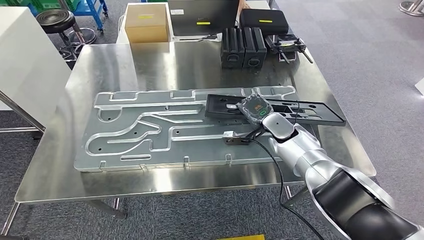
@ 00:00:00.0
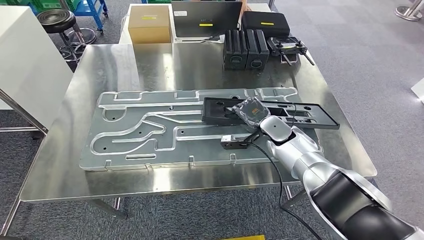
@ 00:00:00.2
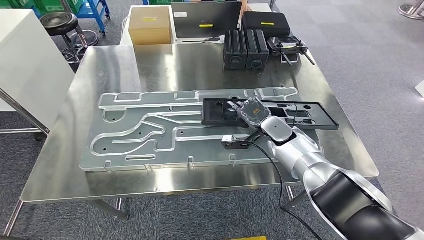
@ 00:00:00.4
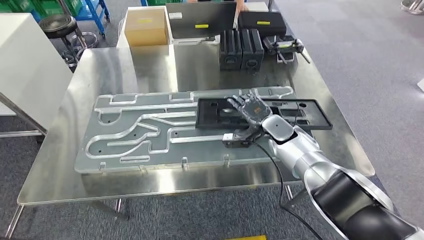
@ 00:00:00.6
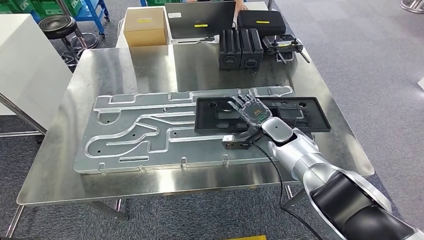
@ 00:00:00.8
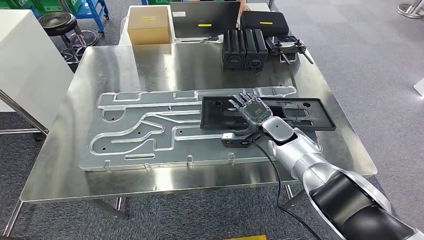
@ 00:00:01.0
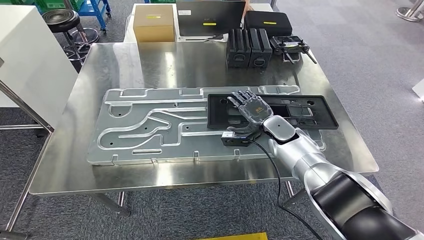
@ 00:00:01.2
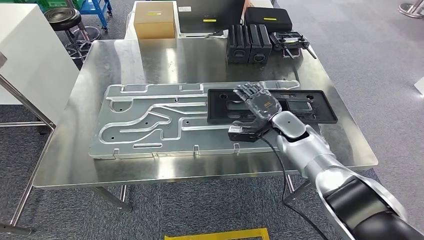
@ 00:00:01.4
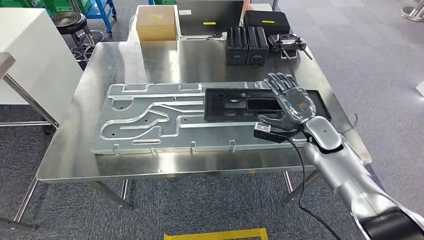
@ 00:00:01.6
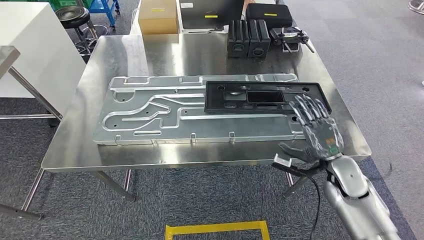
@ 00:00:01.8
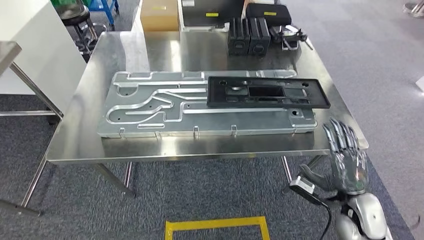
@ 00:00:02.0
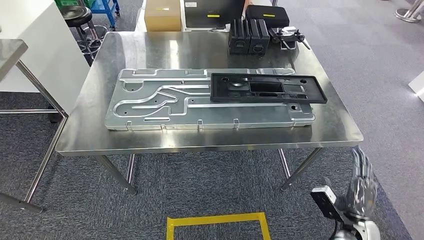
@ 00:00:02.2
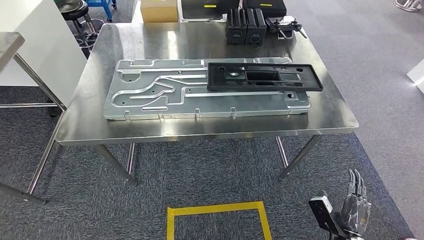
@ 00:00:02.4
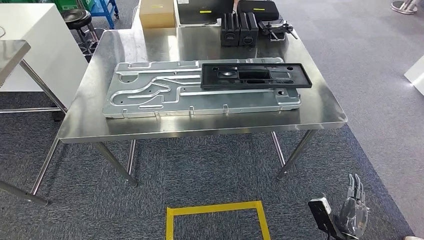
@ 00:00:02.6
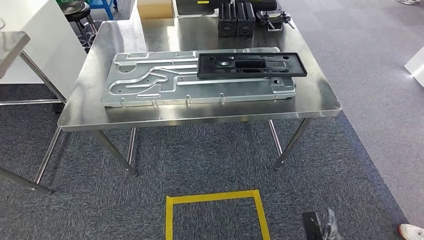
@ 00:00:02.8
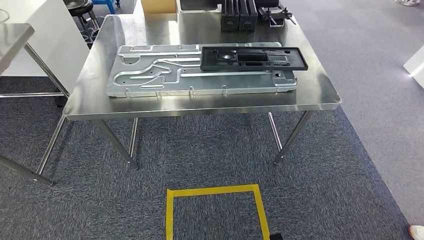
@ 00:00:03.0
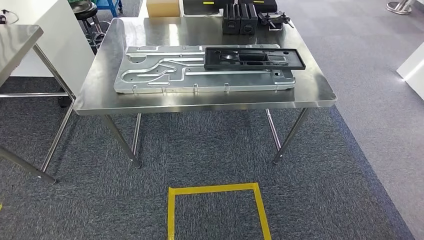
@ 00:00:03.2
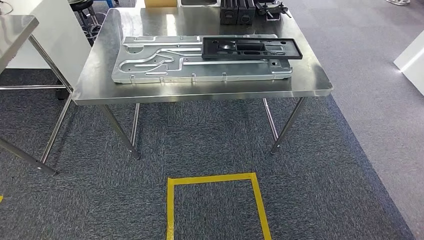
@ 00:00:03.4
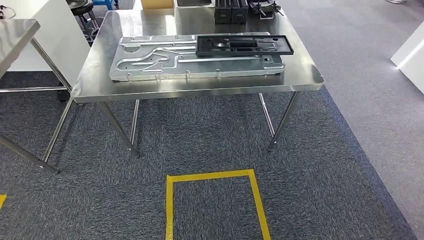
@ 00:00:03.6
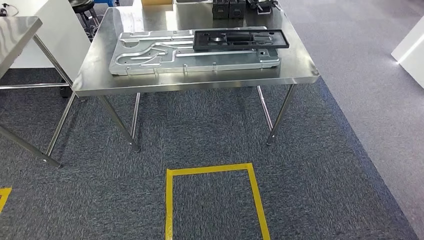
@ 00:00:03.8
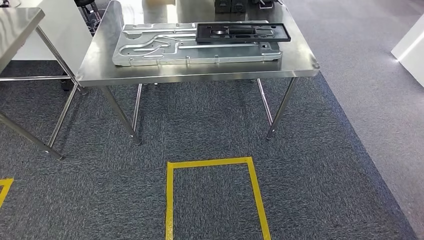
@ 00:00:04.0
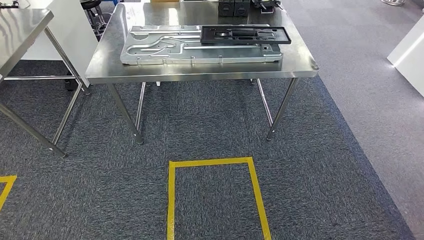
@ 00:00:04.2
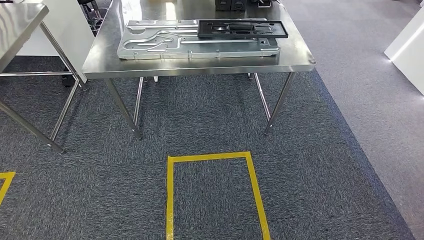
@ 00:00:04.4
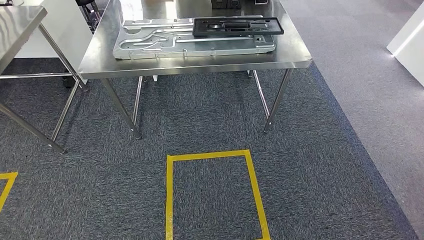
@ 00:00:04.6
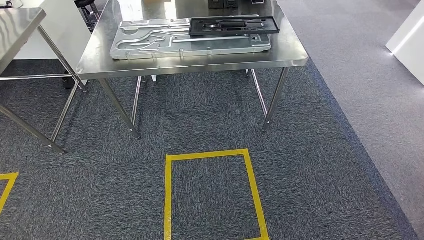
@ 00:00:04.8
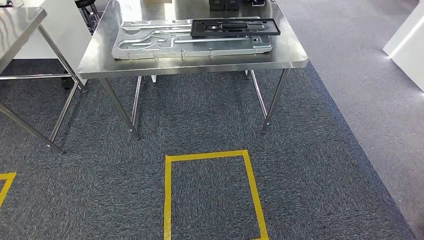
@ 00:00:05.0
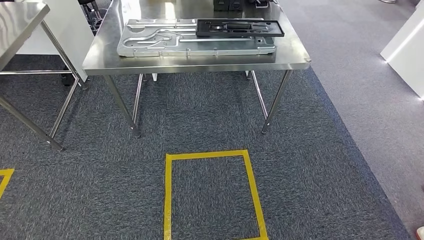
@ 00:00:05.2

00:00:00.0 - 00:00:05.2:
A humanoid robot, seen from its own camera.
Step, 00:00:00.0 - 00:00:02.0: Insert the large material into the corresponding slot on the workbench.
Step, 00:00:02.4 - 00:00:05.2: Move to the initial position of the shelf.
